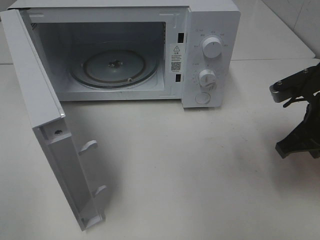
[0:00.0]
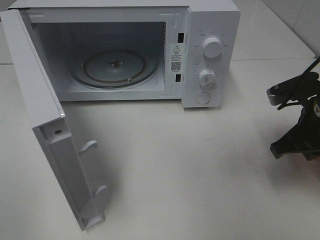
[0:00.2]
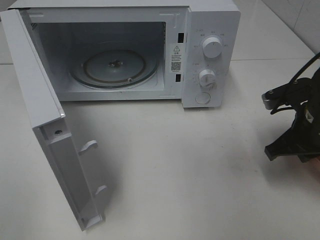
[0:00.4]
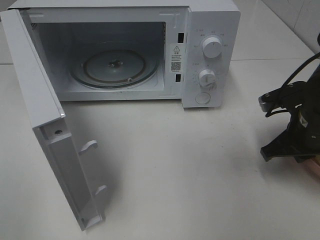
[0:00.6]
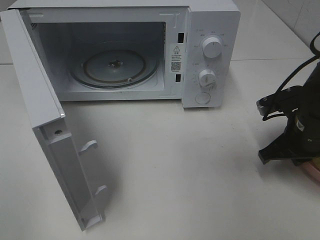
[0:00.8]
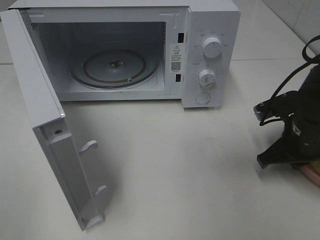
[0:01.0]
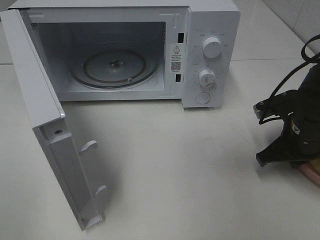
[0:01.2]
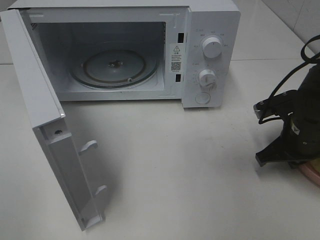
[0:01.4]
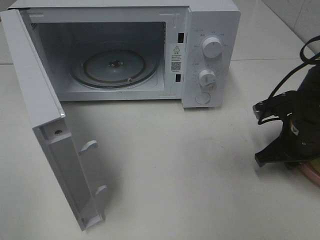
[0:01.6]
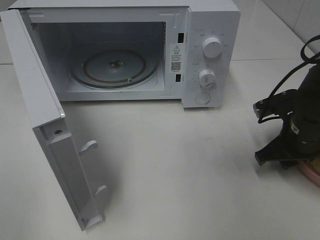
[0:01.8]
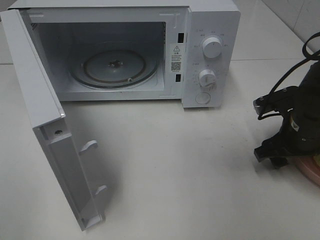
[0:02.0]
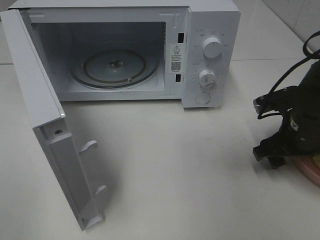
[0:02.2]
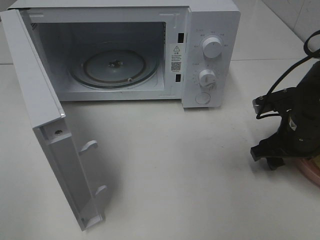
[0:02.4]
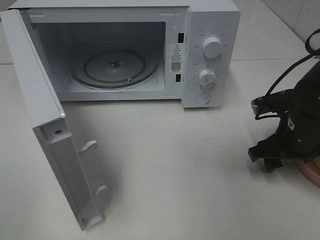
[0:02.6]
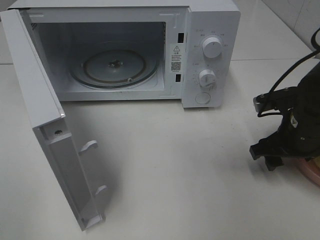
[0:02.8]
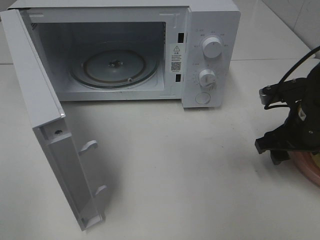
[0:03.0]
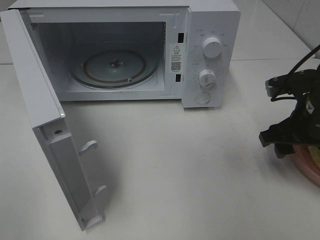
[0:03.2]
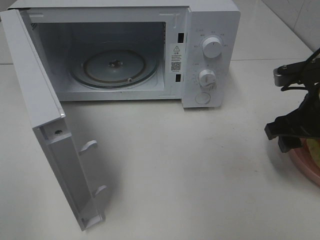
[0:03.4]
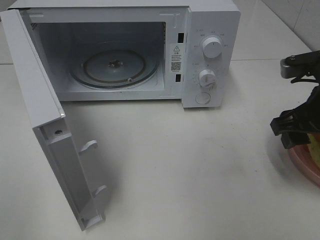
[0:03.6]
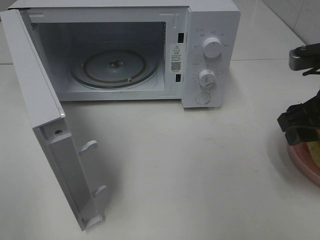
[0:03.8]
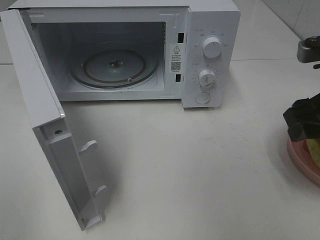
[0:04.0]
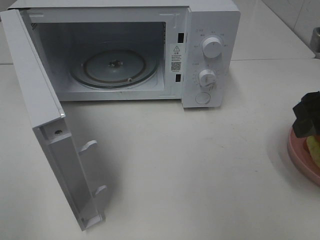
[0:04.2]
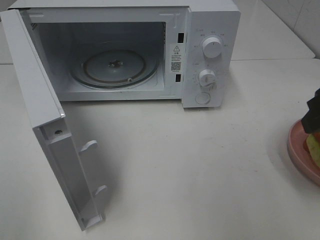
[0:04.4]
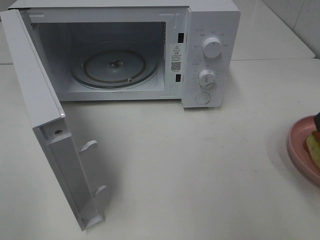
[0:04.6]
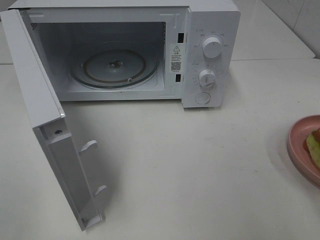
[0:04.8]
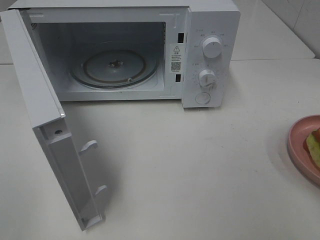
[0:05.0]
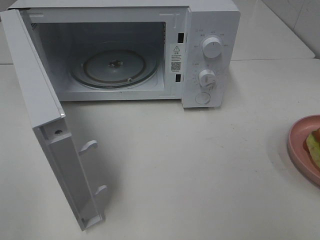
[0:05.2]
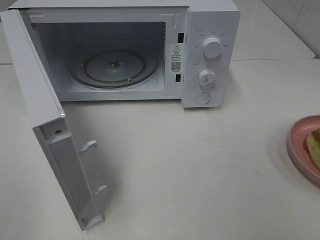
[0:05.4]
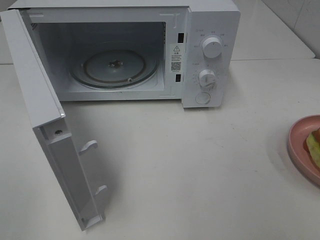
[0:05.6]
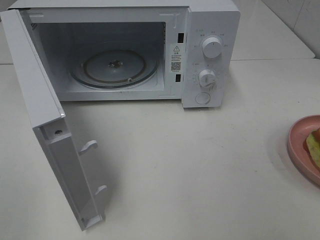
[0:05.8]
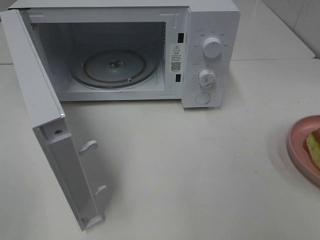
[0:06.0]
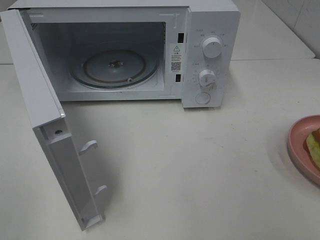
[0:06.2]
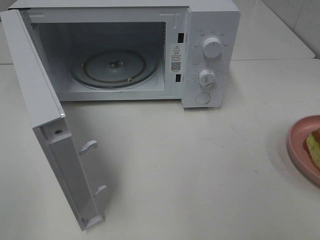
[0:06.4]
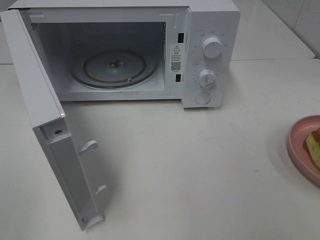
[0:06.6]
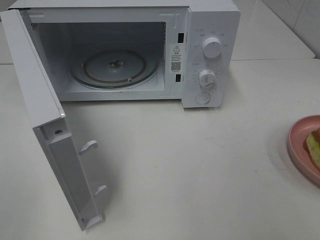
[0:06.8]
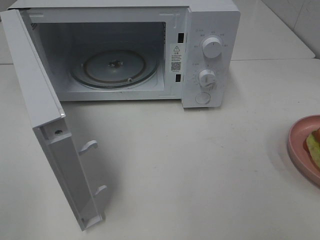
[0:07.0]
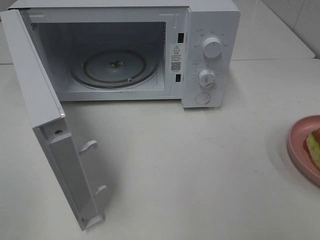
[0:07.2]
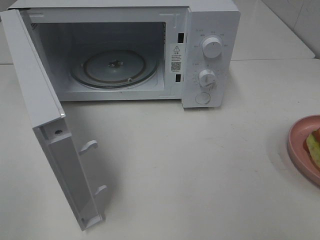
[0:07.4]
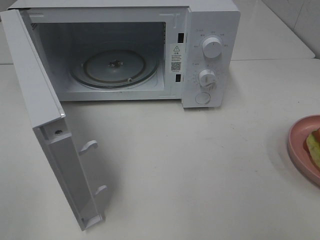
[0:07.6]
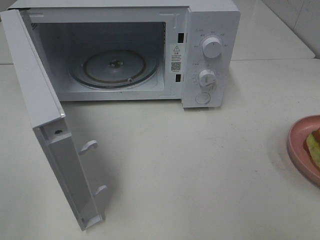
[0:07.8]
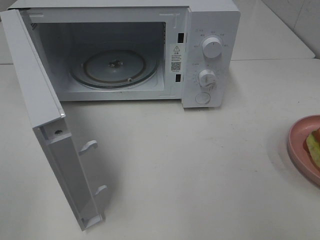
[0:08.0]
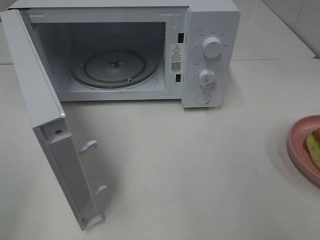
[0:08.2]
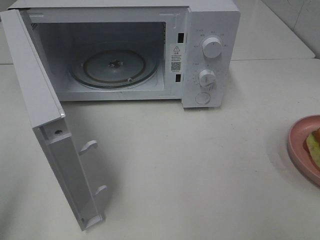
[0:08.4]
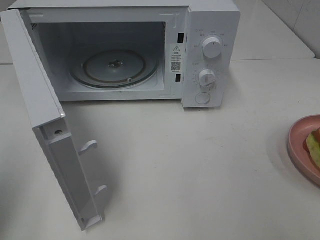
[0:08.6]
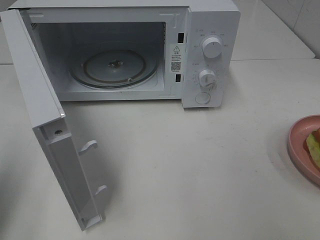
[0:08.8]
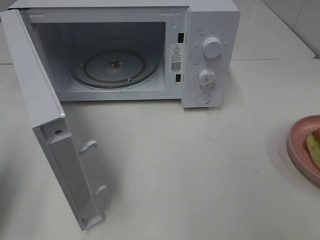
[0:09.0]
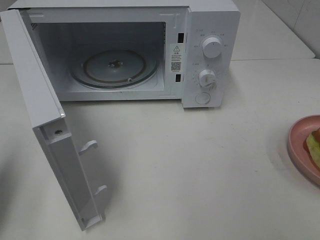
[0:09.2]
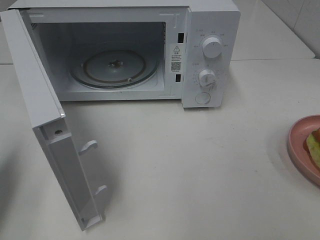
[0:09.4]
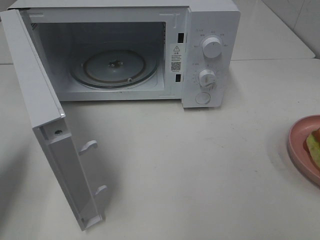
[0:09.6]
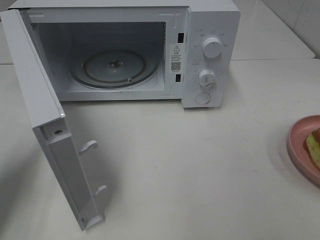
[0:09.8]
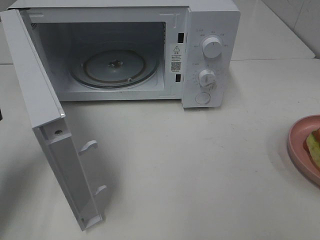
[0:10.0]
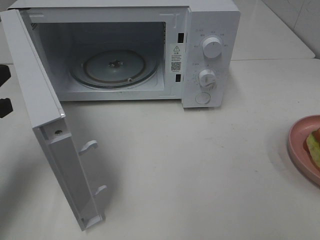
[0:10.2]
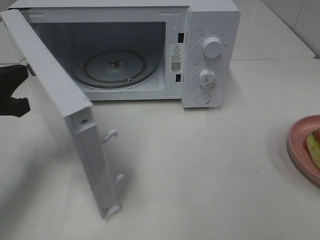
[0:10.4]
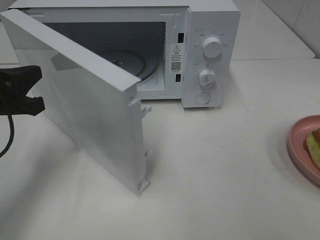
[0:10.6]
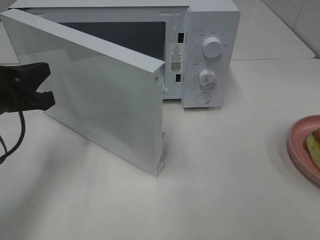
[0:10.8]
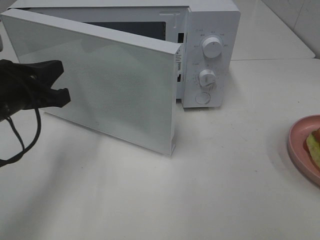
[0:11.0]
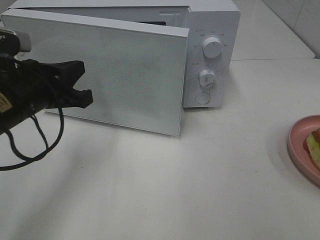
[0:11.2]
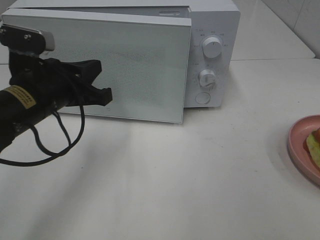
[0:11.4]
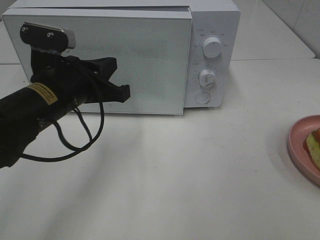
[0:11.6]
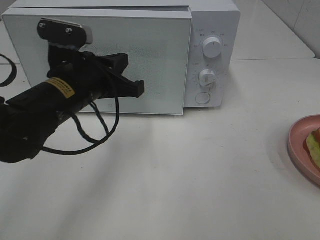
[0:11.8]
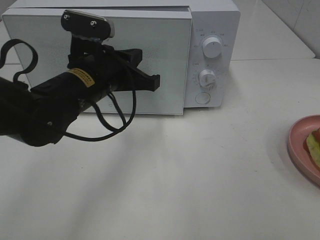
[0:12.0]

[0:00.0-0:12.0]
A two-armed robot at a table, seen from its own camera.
Task of the whole recording: Heat Sandwich.
Step, 0:00.0 to 0:03.4: Right hand: place the plate on the table.
0:00.0 to 0:01.6: The right gripper travels downward by approximately 5 cm.
0:01.6 to 0:03.0: The right gripper opens.
0:03.0 to 0:04.4: The right gripper travels upward and backward by some 15 cm.
0:04.4 to 0:06.0: The right gripper moves backward, approximately 20 cm.
0:06.0 to 0:07.6: The two grippers keep their place.
0:07.6 to 0:09.0: The left gripper goes roughly 15 cm forward, and closes up.
0:09.0 to 0:10.4: The left gripper shifts about 15 cm forward, downward and to the right.
0:10.4 to 0:12.0: The left gripper is displaced to the right by roughly 20 cm.

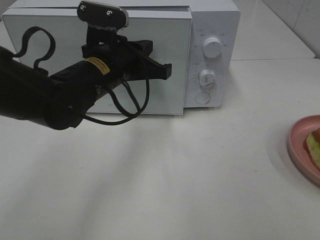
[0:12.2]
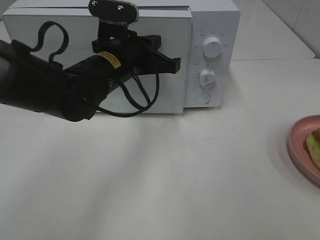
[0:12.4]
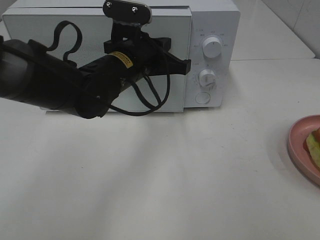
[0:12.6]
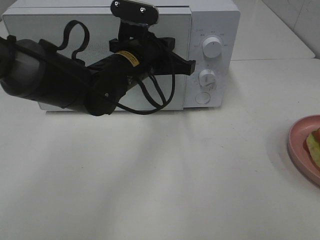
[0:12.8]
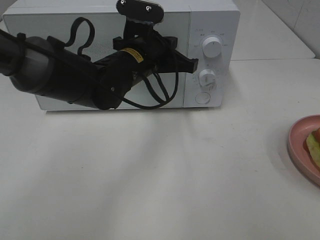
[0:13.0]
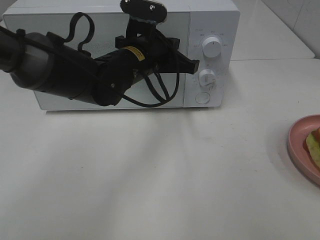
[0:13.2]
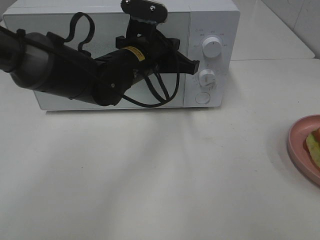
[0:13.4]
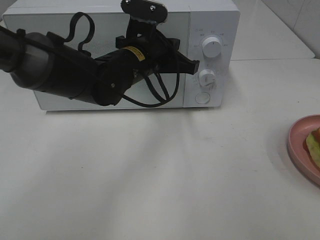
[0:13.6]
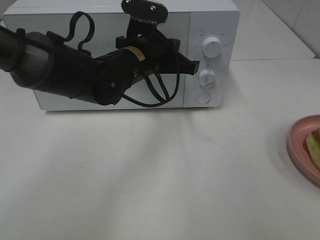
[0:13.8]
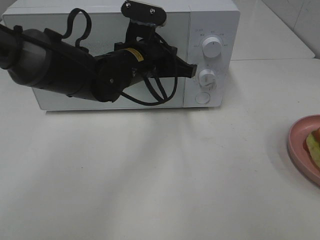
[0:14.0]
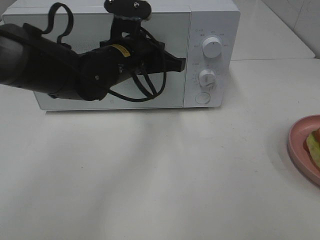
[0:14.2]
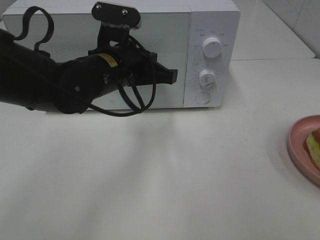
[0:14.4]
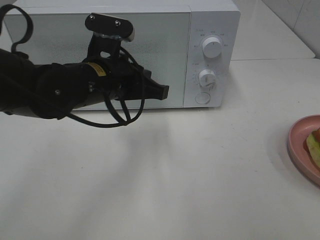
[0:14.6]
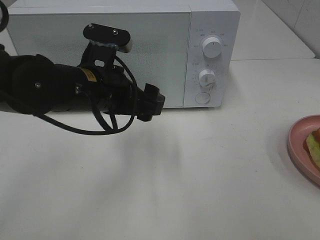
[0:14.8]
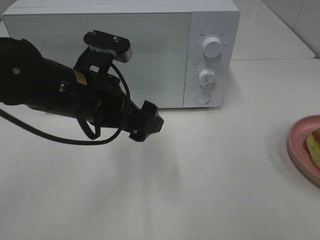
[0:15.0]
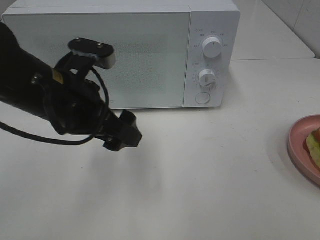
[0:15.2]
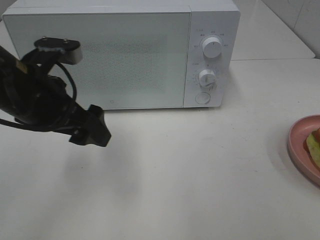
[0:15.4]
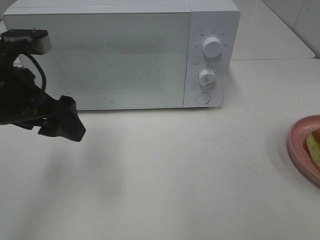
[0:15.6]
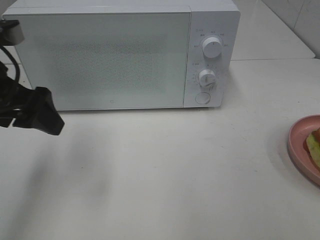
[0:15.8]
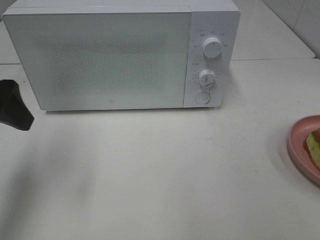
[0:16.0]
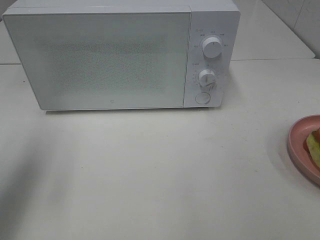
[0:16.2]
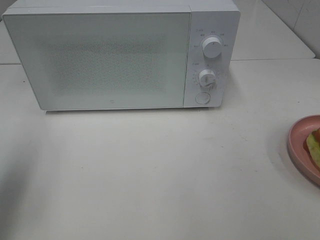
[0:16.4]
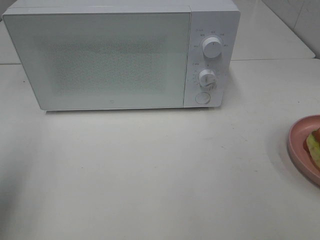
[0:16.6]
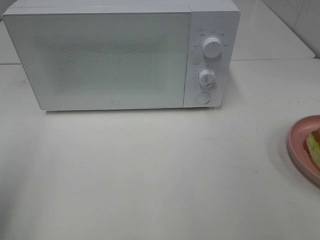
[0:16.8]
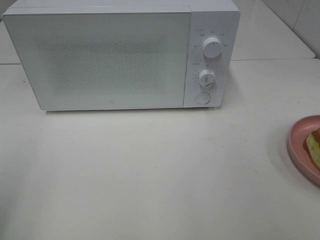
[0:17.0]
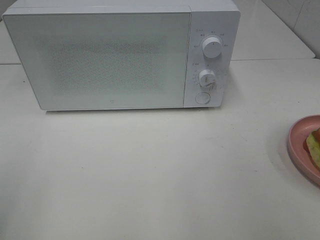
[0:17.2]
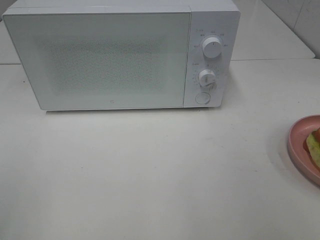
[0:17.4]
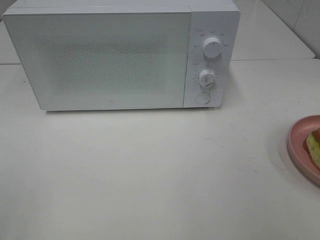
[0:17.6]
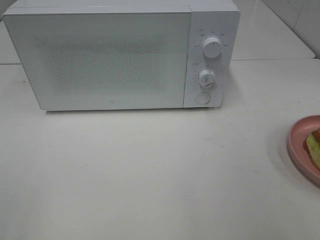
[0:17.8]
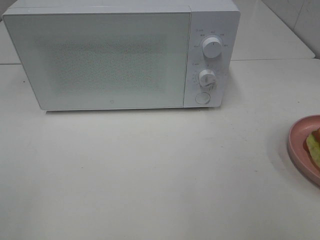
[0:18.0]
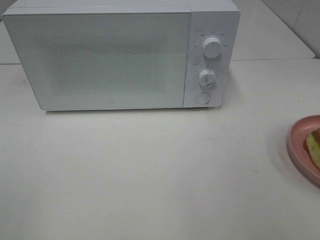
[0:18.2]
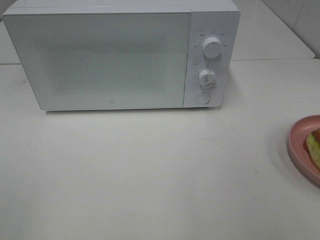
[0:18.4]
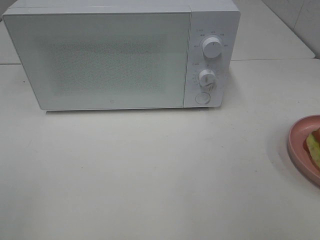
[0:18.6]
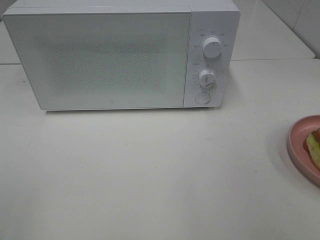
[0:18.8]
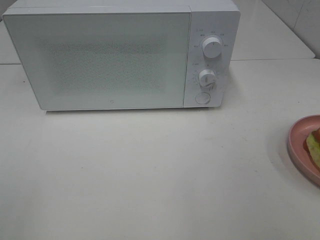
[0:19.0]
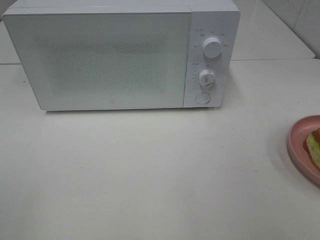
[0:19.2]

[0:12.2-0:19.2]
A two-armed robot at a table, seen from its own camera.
Task of the whole recording: Heat Sandwich.
Step, 0:12.2 to 0:14.6: Left hand: close the microwave door.
0:12.2 to 0:13.6: The left gripper ends up approximately 5 cm from where it was.
0:13.6 to 0:15.0: The left gripper heads backward and to the left, covering roughly 15 cm, and opens.
0:15.0 to 0:16.4: The left gripper travels to the left by approximately 20 cm.
0:16.4 to 0:17.8: The left gripper is displaced backward by some 20 cm.
0:17.8 to 0:19.2: Both grippers stay put.
